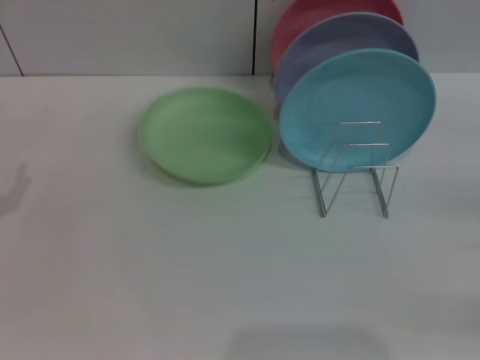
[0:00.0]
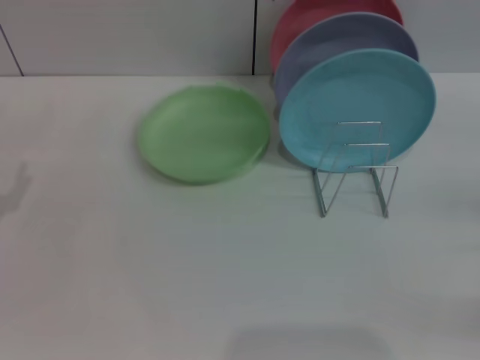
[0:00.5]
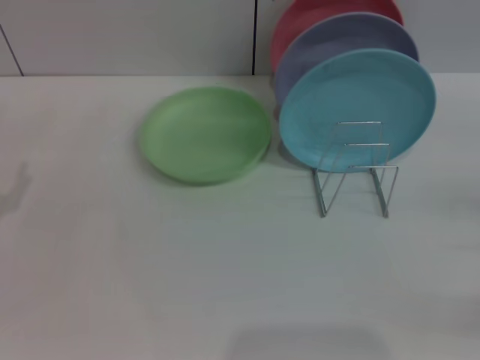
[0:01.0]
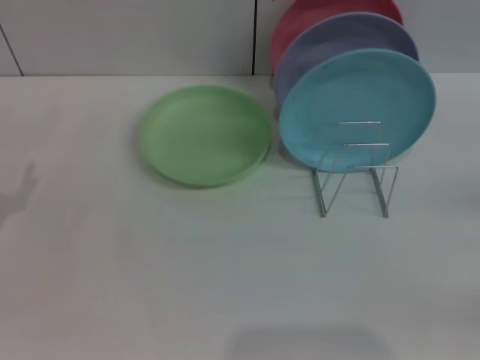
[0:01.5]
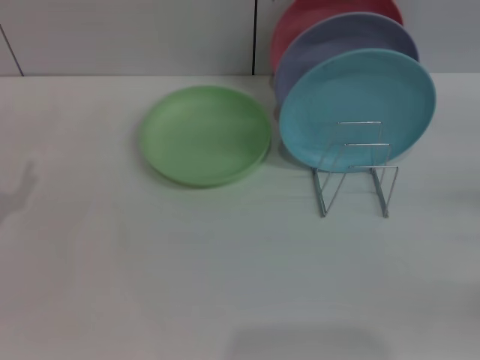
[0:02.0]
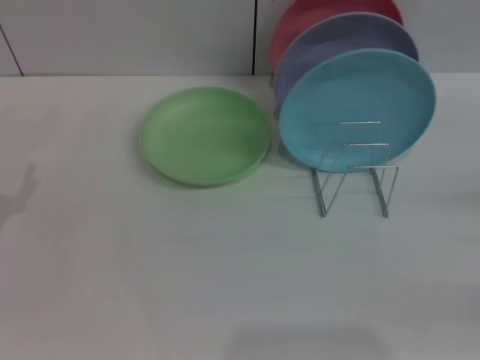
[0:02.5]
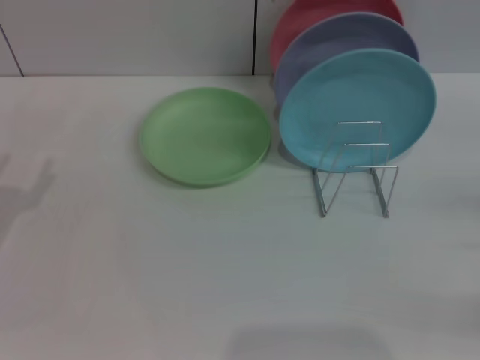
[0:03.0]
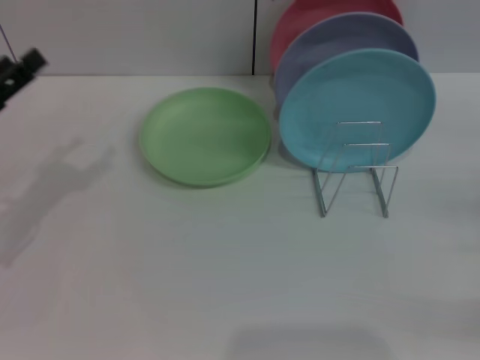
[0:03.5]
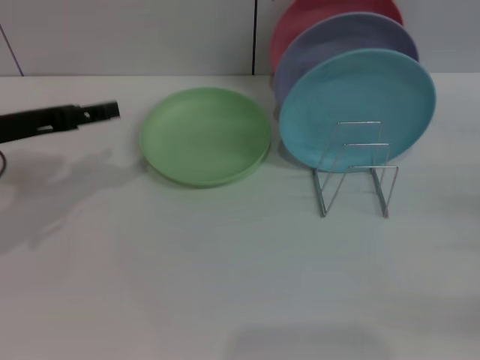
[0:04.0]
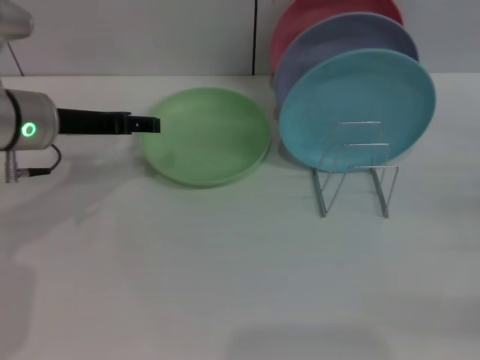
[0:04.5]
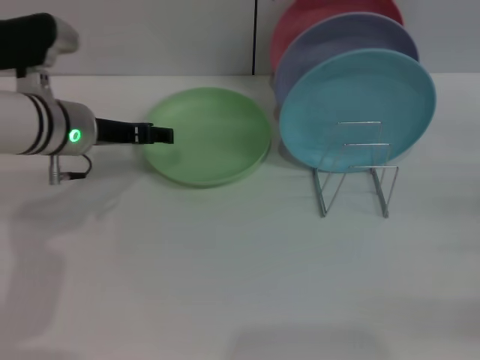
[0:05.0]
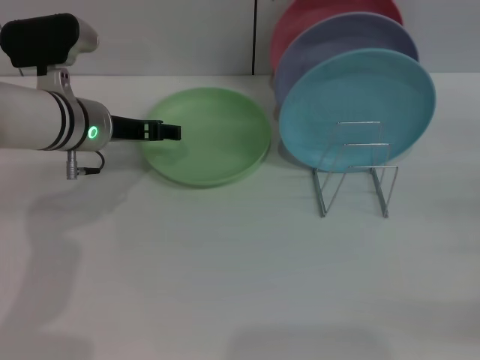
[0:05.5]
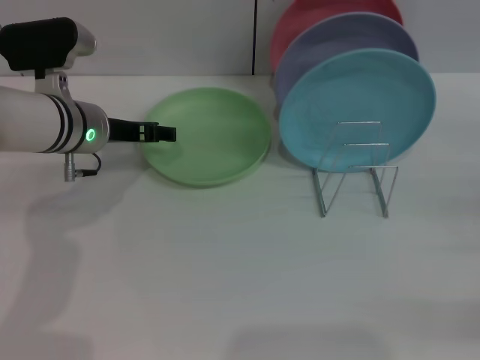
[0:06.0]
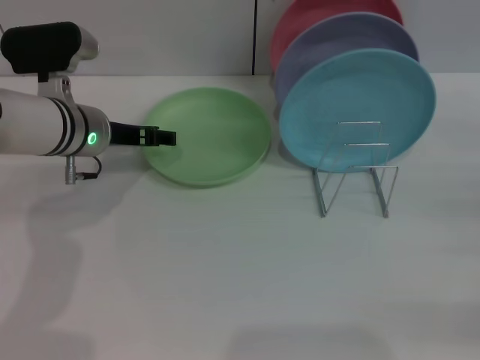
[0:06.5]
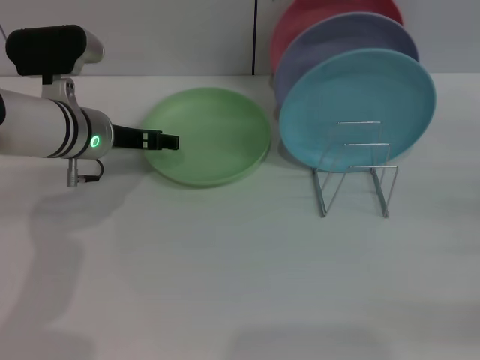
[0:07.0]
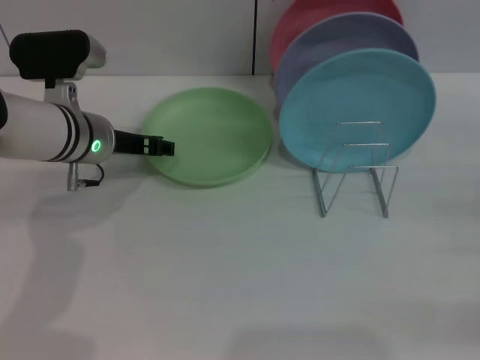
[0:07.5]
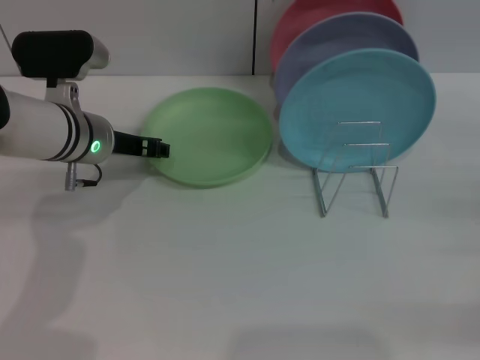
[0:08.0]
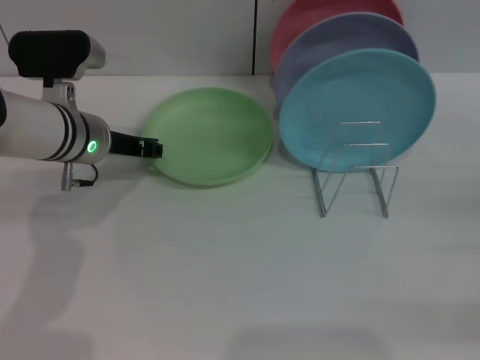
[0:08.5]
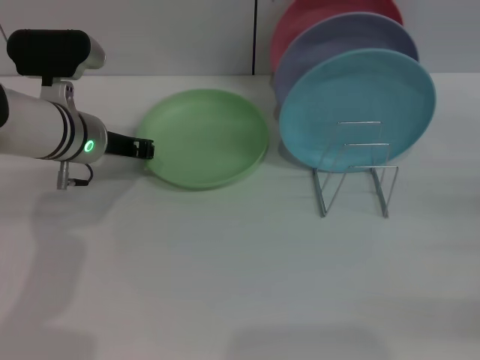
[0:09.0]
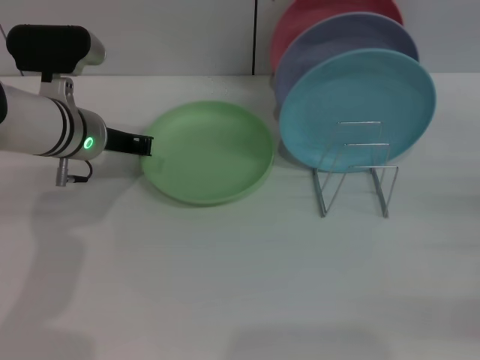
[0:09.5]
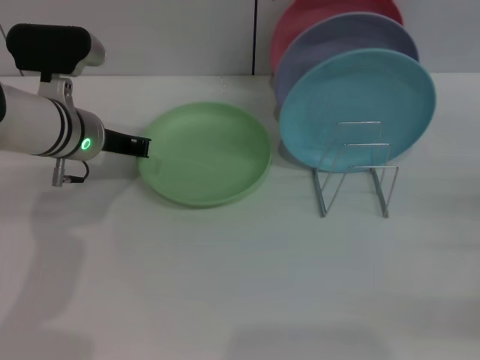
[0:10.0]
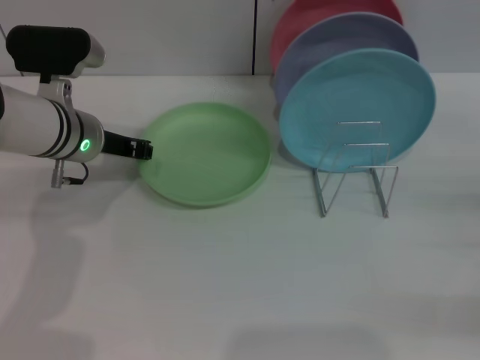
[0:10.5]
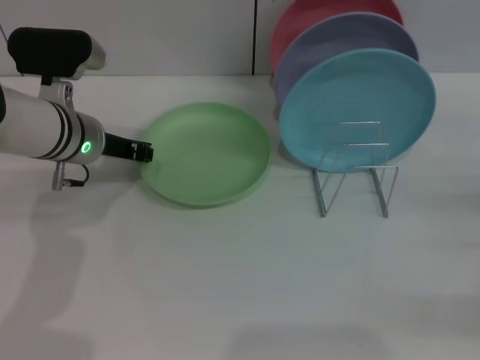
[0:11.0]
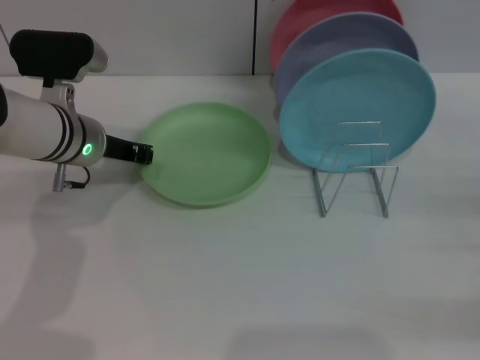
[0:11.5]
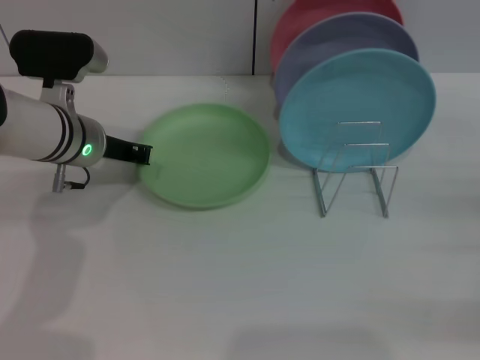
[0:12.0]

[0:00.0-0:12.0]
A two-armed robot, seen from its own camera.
Task of the whole recording: Grip the plate with one hand, pass it to the other, then set it on the shelf.
0:00.0 to 0:02.0: Both grippers stay put.
0:02.0 to 0:04.0: The left gripper goes roughly 10 cm upward and forward.
0:04.0 to 0:06.0: The left gripper travels to the right and forward by approximately 15 cm.
0:06.0 to 0:08.0: The grippers make only small movements.
0:08.0 to 0:10.0: The left gripper closes its fingers.
0:10.0 to 0:12.0: Neither gripper changes place.

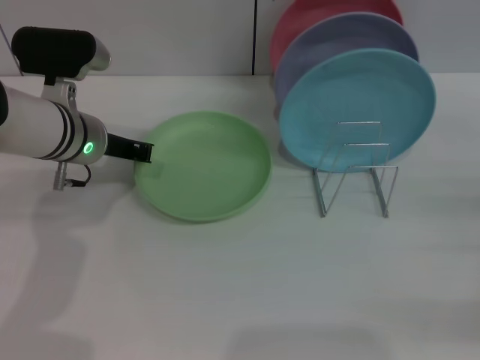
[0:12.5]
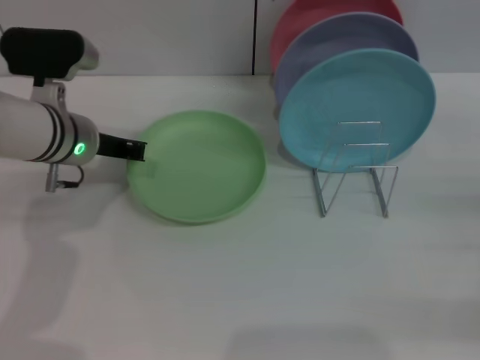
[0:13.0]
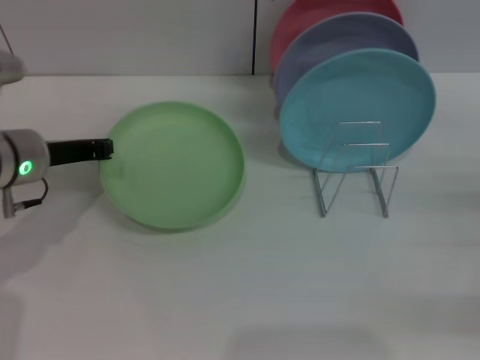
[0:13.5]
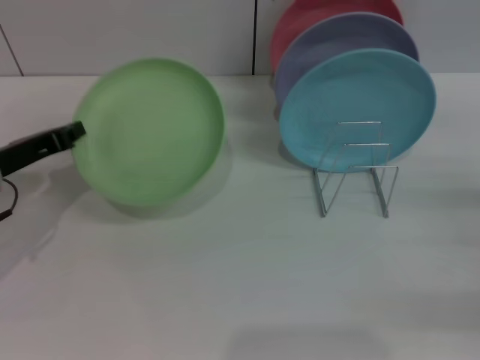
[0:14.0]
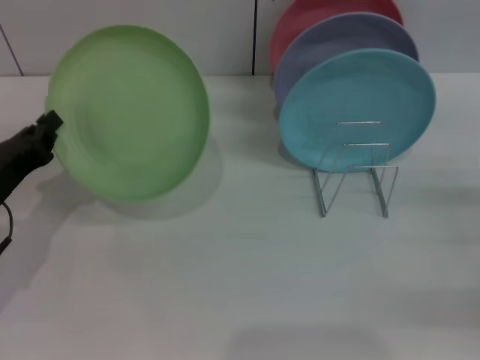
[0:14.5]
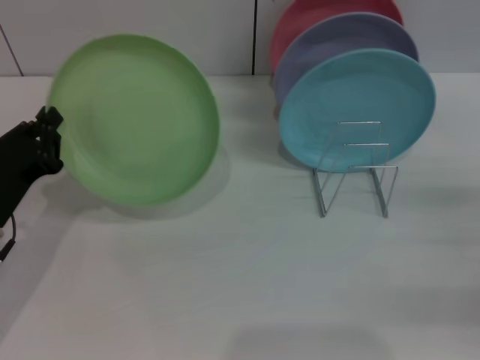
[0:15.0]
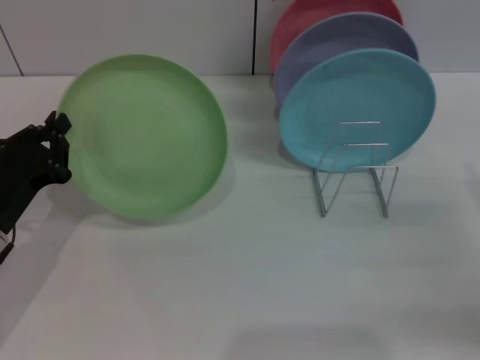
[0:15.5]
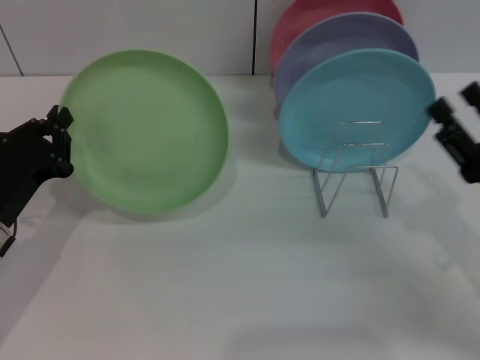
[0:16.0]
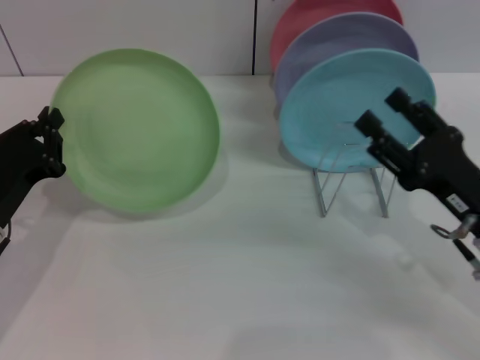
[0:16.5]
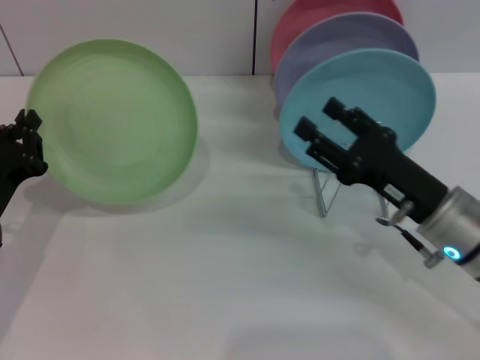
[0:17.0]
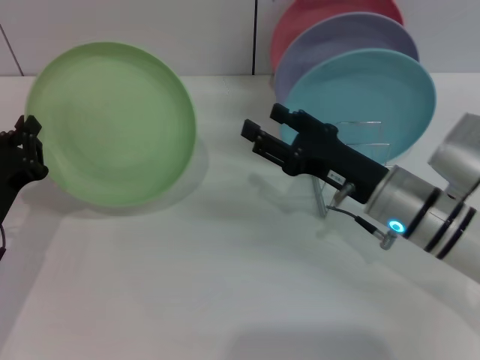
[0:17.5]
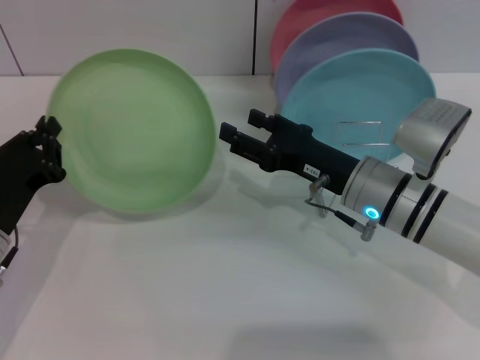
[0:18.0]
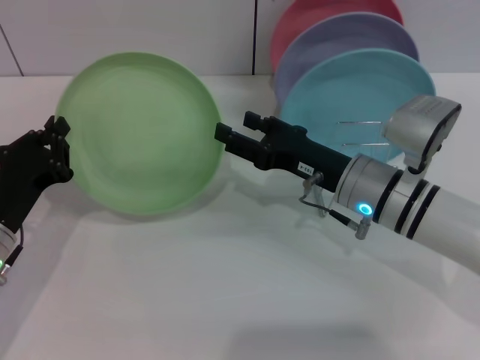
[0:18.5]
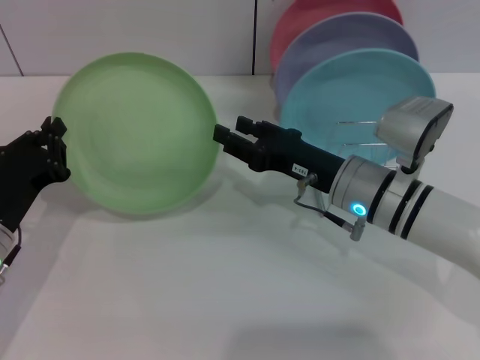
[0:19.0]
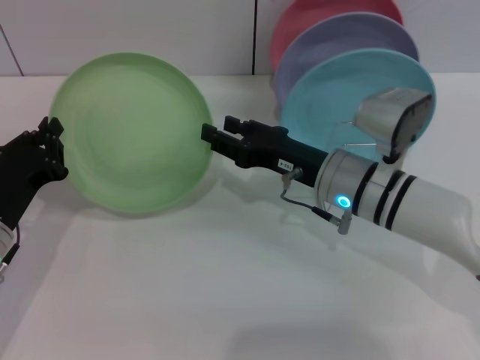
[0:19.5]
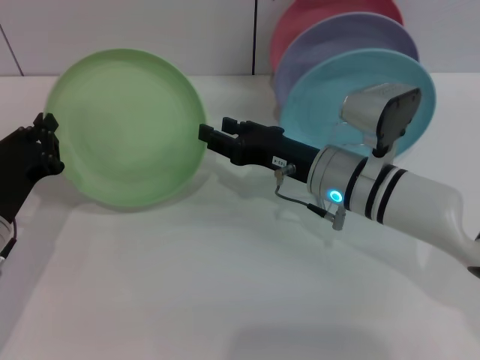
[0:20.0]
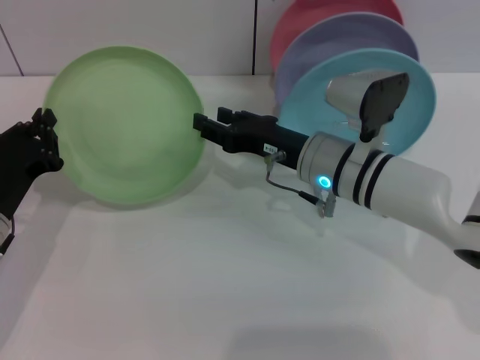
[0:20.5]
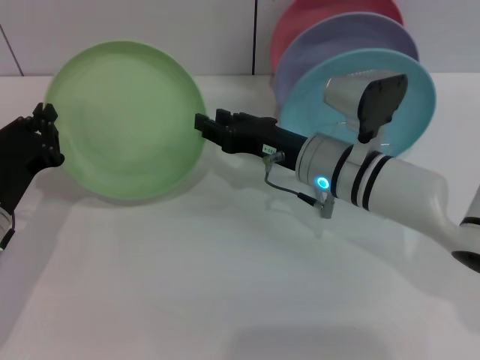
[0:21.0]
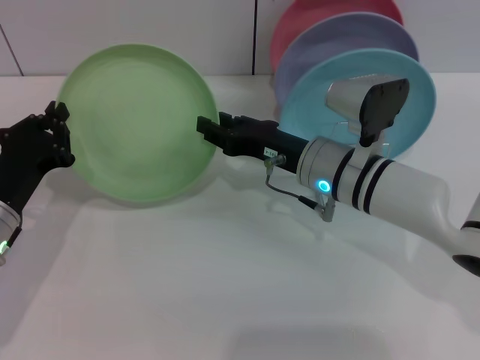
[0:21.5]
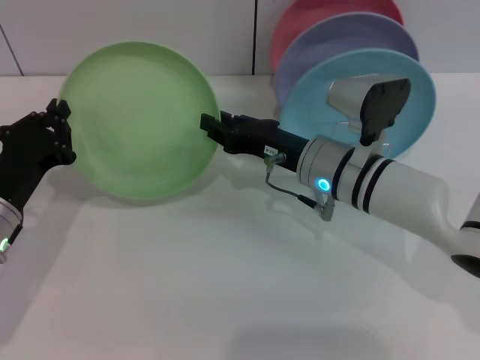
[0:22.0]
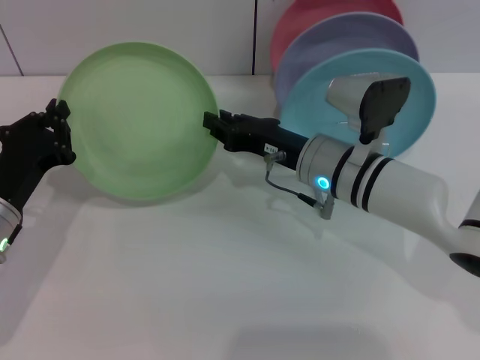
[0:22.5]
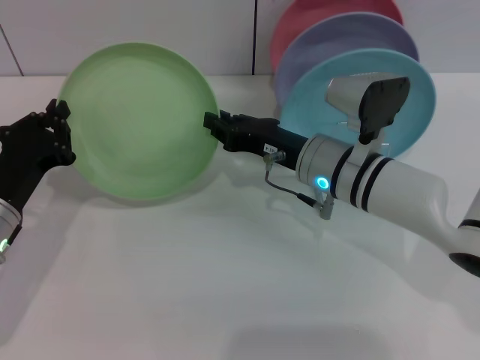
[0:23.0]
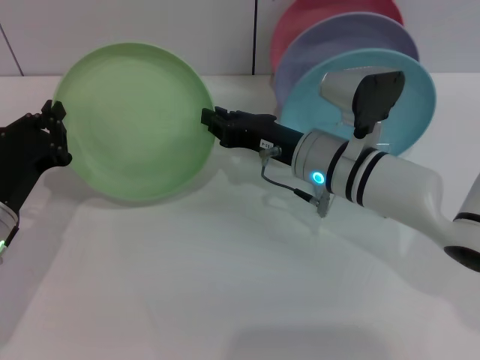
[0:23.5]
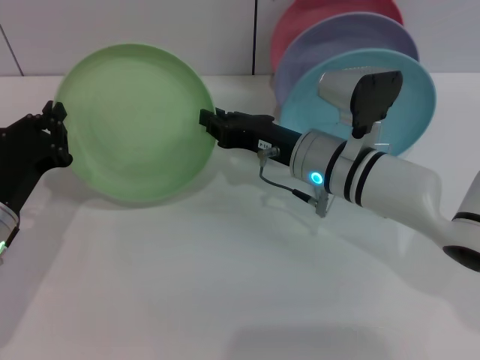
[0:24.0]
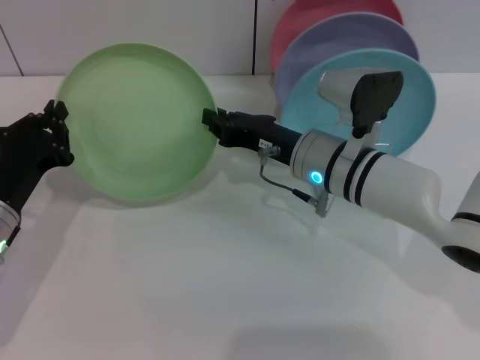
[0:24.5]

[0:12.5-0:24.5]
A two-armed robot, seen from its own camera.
Task of the whole recording: Grip the plate with one hand, pass it to the other, then set it on the shelf.
0:12.5 to 0:14.5: The left gripper travels backward, to the left and downward by some 20 cm.
0:14.5 to 0:16.5: The right gripper moves to the left, about 15 cm.
0:16.5 to 0:18.5: The right gripper travels to the left and forward by some 15 cm.
0:18.5 to 0:20.5: The grippers stay close to where they were, moving slightly.
0:20.5 to 0:22.5: The right gripper closes up.
0:22.5 to 0:24.5: The two grippers keep their place.

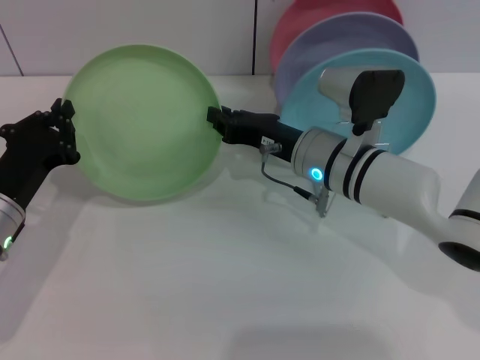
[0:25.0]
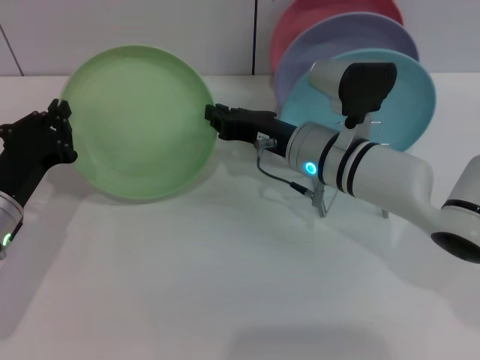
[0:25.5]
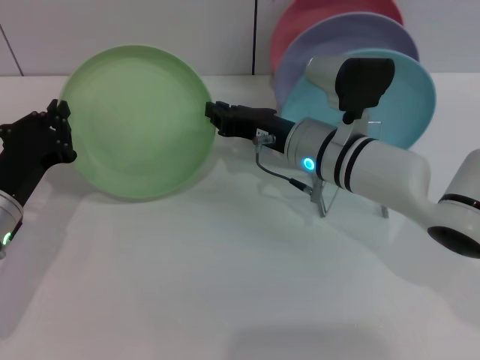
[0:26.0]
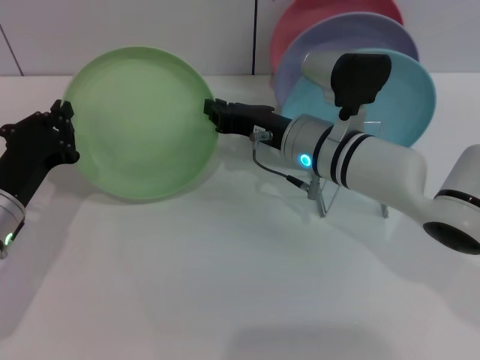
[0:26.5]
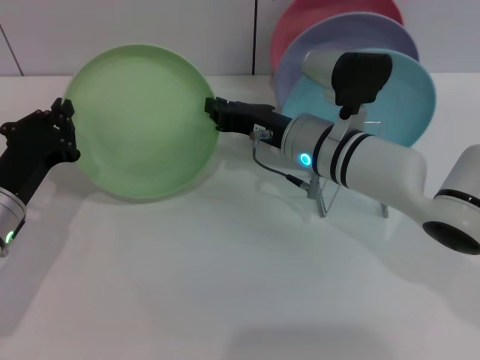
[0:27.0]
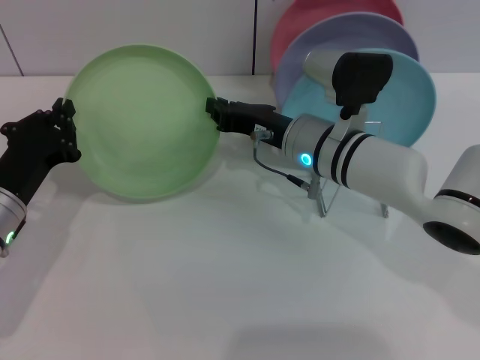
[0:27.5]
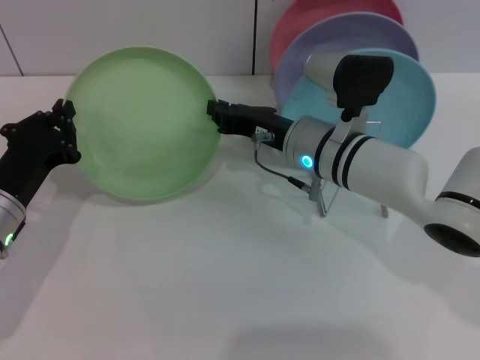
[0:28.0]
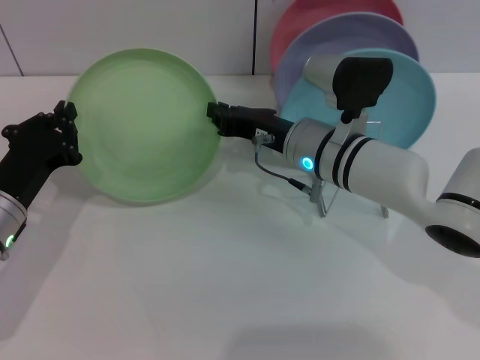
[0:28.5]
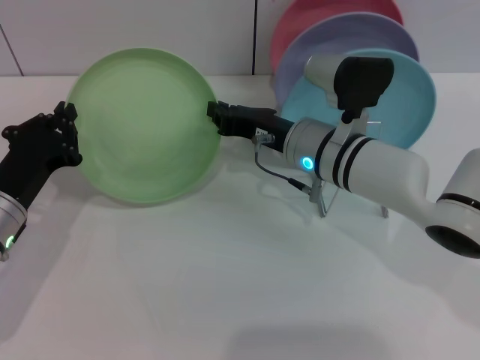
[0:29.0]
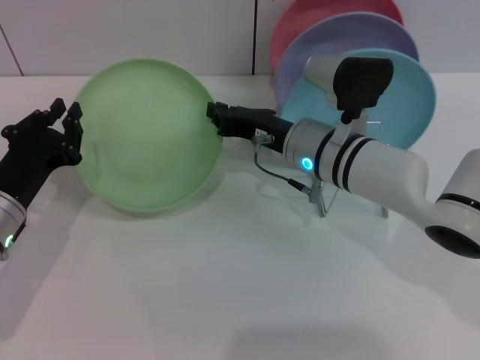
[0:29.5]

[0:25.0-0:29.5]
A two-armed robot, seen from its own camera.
Task of the whole recording: Grip the plate with one hand, pass it to the other, then set it on the shelf.
0:25.0 to 0:27.0: The grippers make only small movements.
0:27.0 to 0:29.5: Neither gripper changes place.
